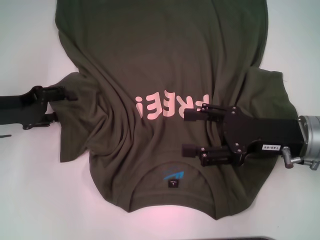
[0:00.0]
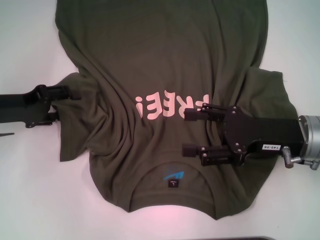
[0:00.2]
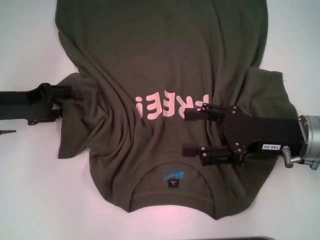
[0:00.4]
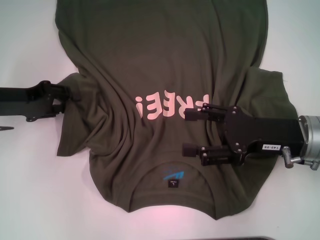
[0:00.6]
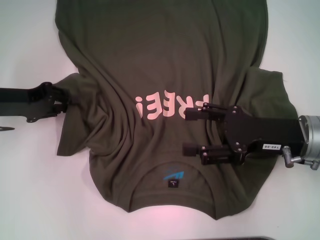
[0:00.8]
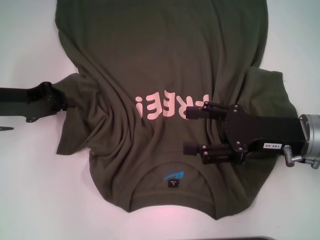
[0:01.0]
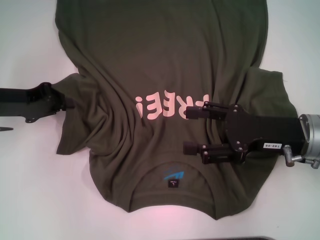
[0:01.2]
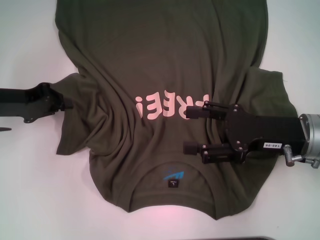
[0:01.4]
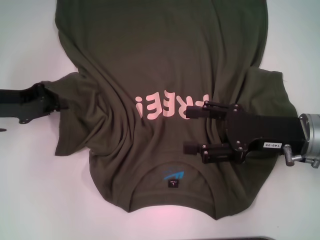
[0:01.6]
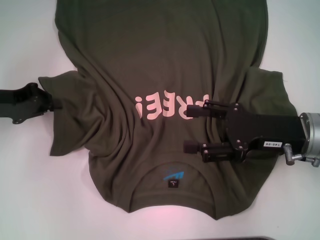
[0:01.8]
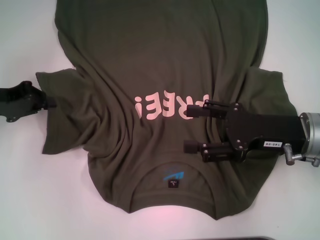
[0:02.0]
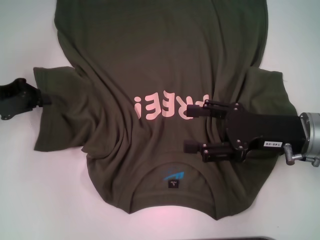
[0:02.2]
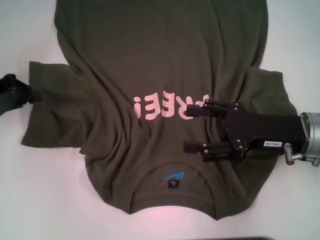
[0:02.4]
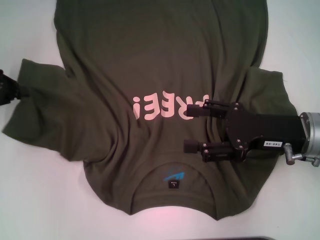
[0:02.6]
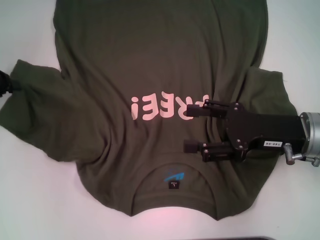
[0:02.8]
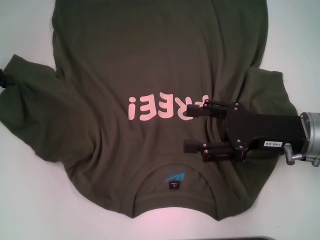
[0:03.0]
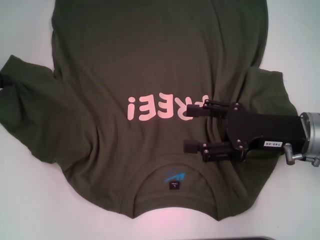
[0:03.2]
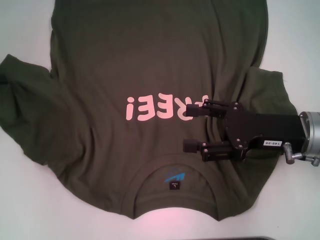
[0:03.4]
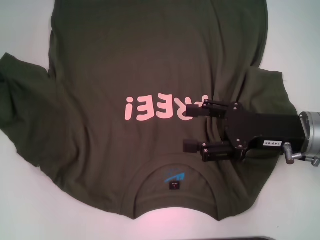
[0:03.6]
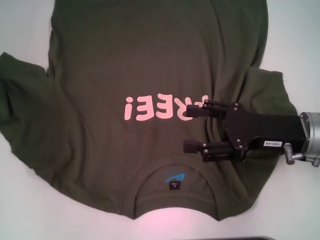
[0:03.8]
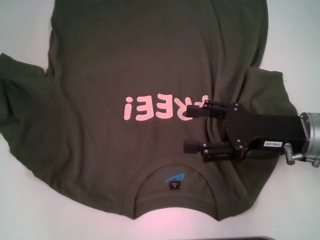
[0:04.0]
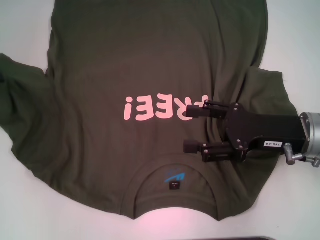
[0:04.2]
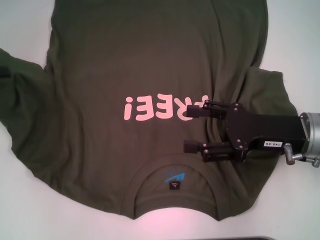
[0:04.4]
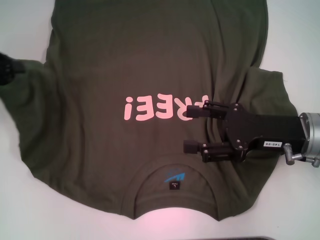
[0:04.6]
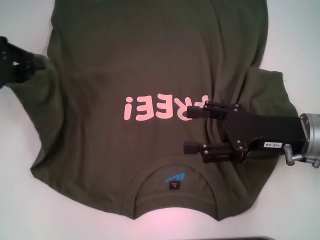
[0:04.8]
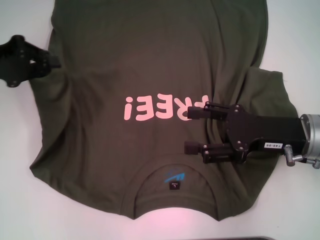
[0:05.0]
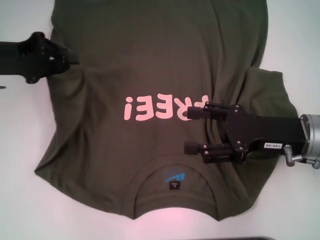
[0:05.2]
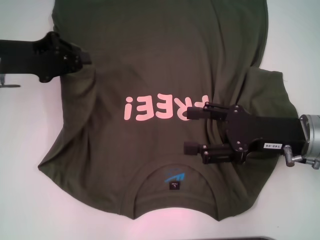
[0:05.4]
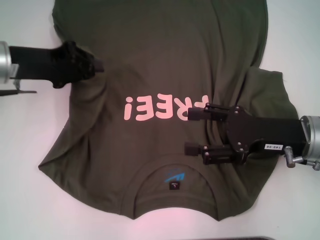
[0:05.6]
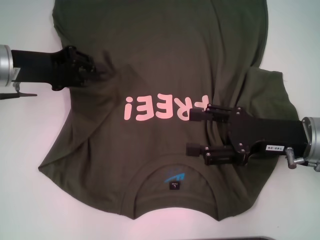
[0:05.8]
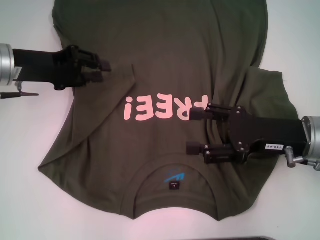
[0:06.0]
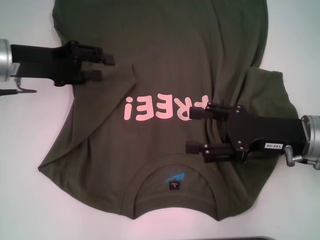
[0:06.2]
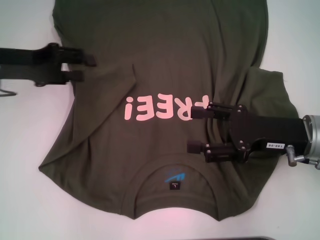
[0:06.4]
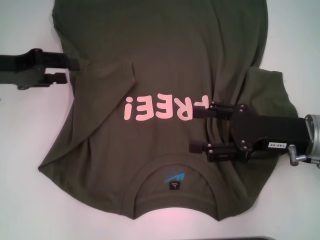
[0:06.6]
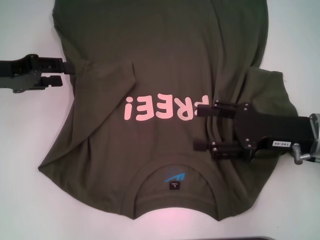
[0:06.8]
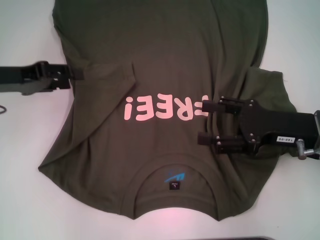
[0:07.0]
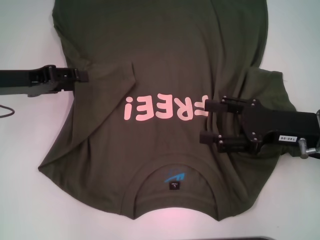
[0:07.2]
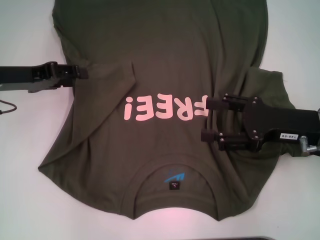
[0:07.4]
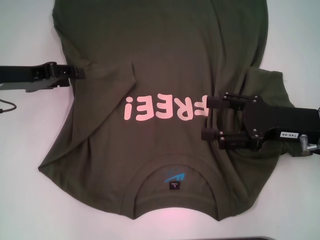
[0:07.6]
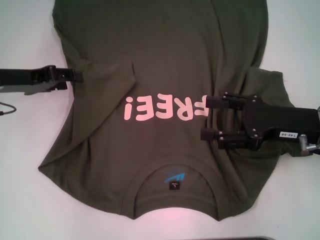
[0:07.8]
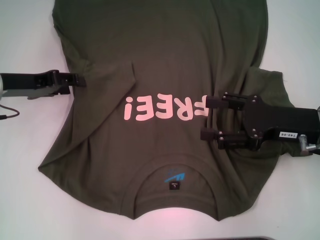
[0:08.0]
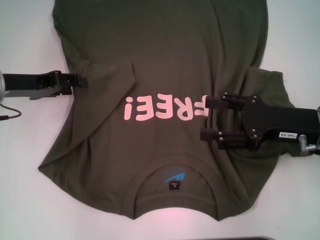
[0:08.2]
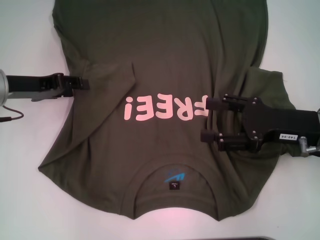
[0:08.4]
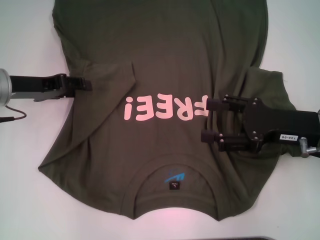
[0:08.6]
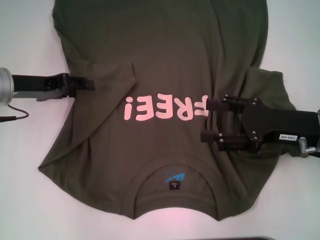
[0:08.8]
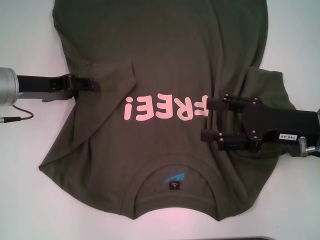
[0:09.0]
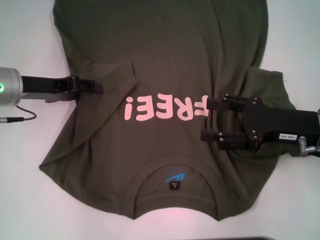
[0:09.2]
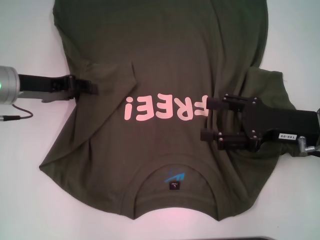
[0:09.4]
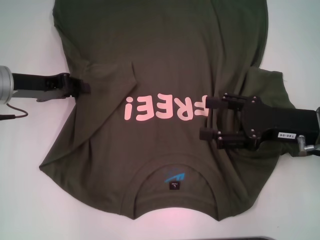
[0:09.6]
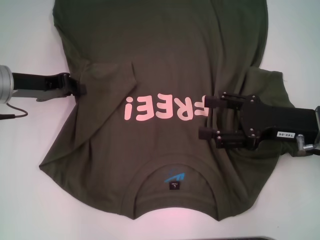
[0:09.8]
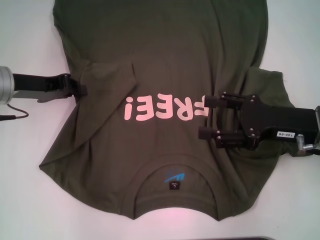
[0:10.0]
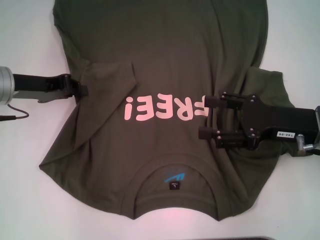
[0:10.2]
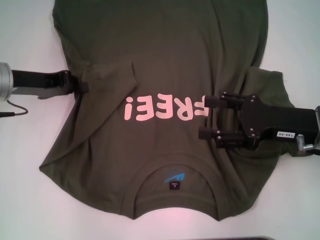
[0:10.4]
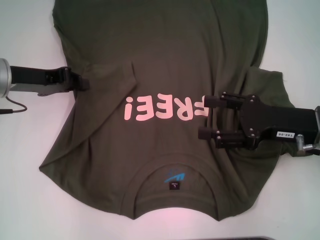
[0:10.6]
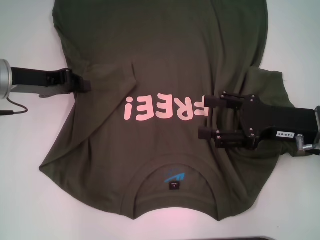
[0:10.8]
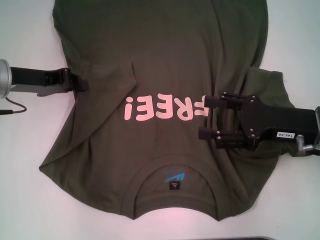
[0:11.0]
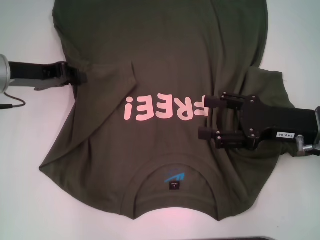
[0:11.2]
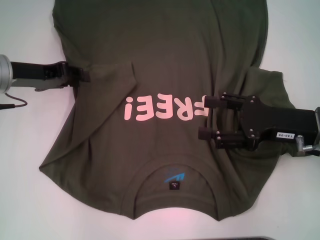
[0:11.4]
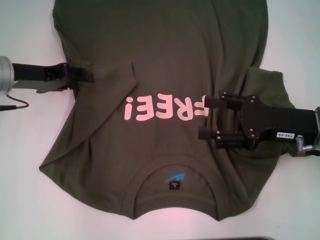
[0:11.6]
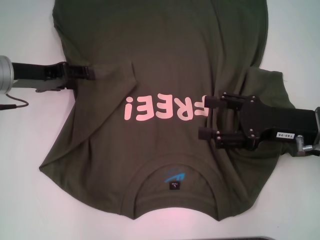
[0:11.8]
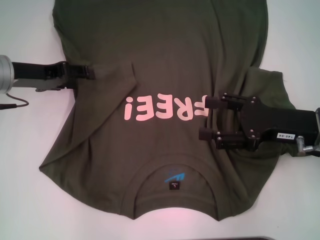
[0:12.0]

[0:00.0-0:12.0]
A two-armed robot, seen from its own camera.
0:00.0 to 0:01.6: The left gripper closes.
0:01.6 to 0:03.0: The left gripper is displaced to the left by roughly 5 cm.
0:03.0 to 0:04.4: The grippers stay close to where they were, moving slightly.
0:04.4 to 0:06.0: The left gripper is displaced to the right by approximately 15 cm.
0:06.0 to 0:07.6: The left gripper opens.
0:07.6 to 0:09.0: The grippers stay close to where they were, moving slightly.
0:09.0 to 0:10.4: The left gripper closes its fingers.
0:10.4 to 0:12.0: The left gripper opens.

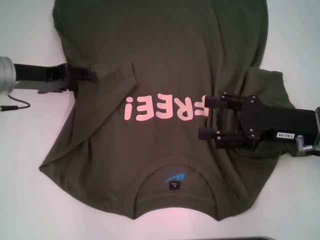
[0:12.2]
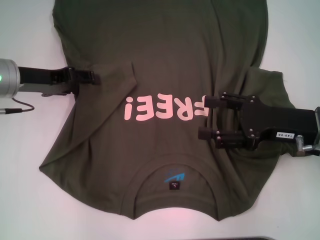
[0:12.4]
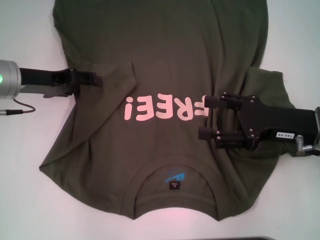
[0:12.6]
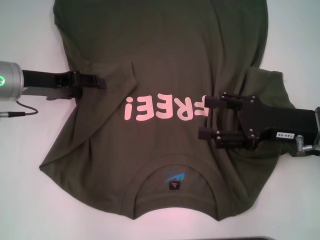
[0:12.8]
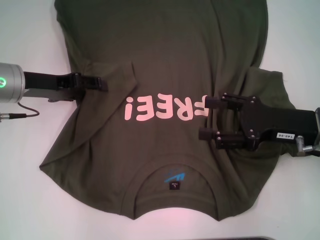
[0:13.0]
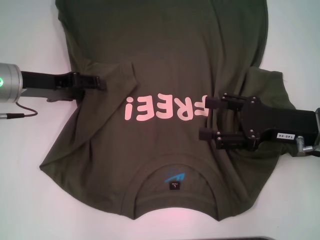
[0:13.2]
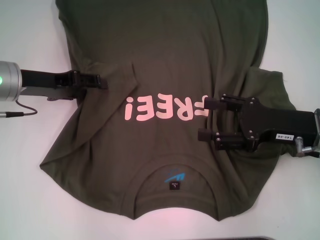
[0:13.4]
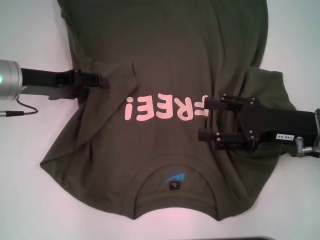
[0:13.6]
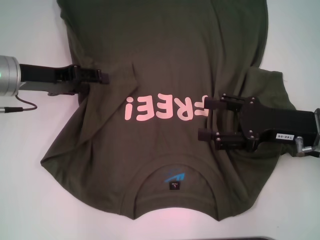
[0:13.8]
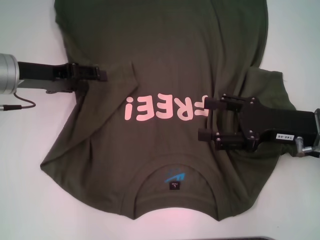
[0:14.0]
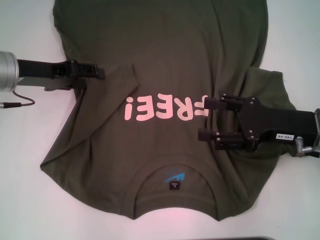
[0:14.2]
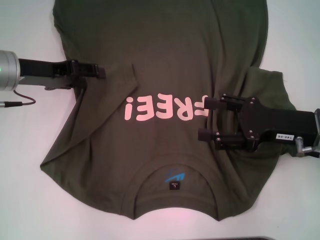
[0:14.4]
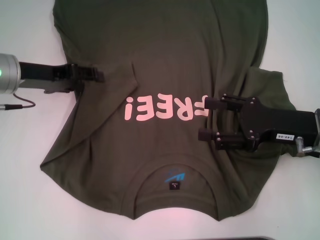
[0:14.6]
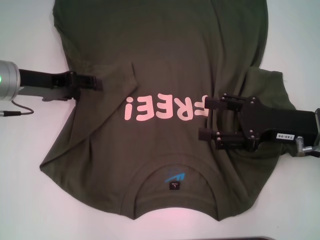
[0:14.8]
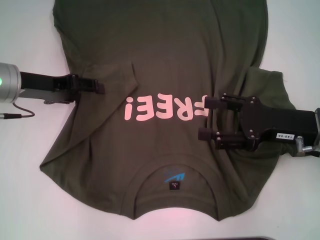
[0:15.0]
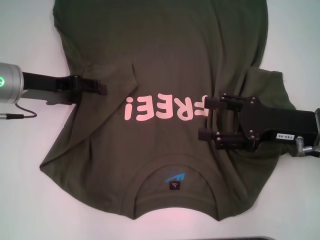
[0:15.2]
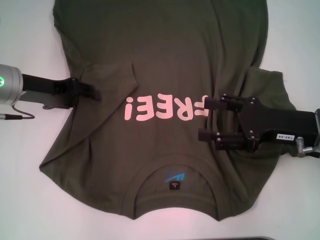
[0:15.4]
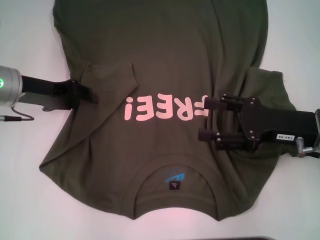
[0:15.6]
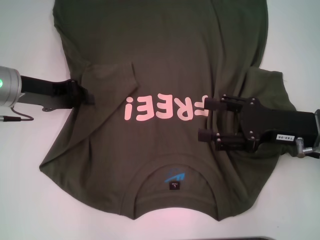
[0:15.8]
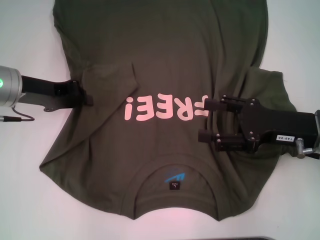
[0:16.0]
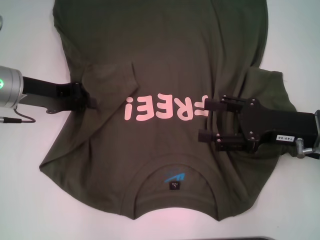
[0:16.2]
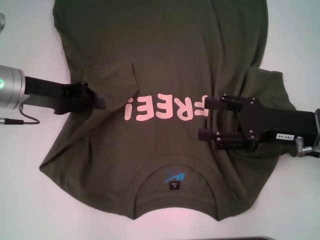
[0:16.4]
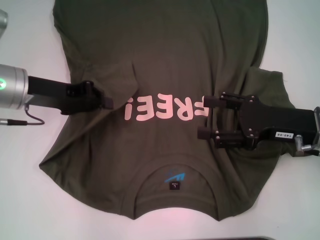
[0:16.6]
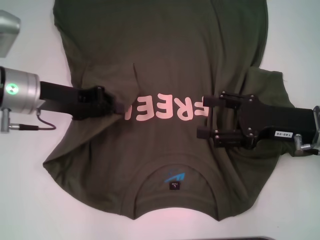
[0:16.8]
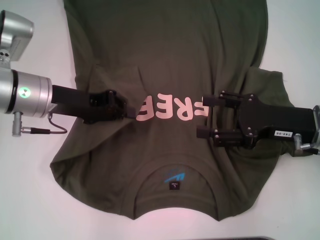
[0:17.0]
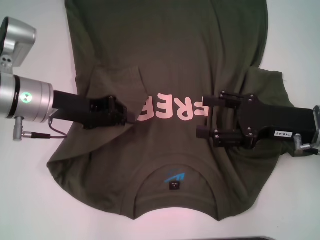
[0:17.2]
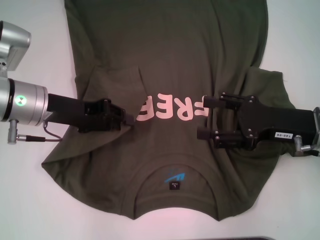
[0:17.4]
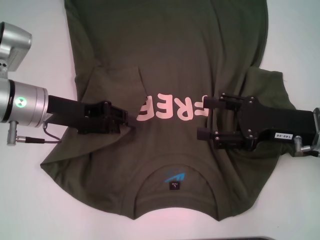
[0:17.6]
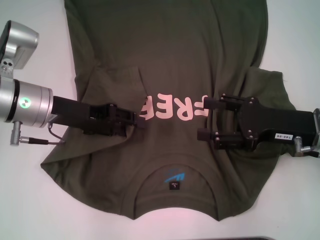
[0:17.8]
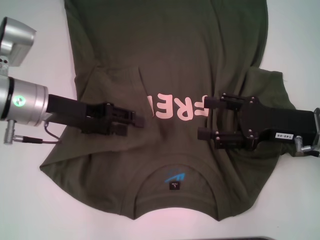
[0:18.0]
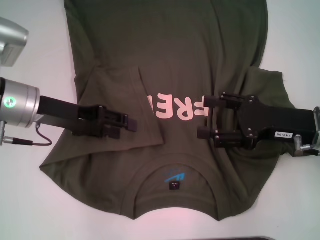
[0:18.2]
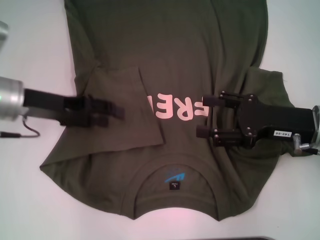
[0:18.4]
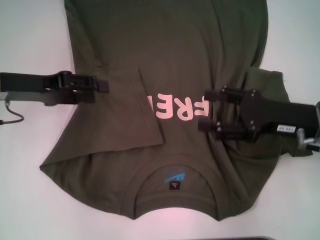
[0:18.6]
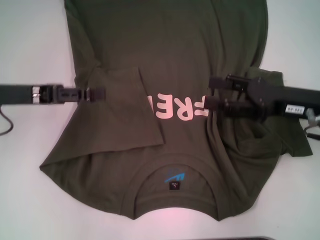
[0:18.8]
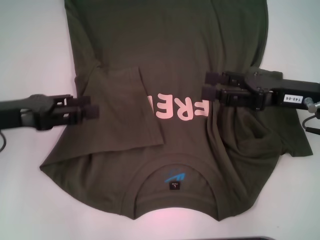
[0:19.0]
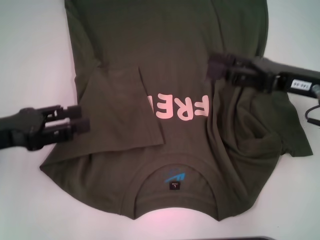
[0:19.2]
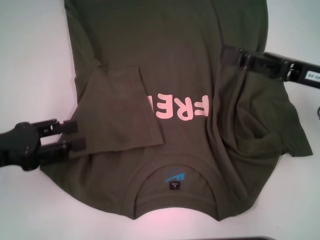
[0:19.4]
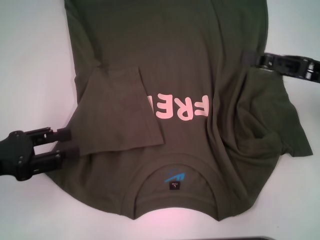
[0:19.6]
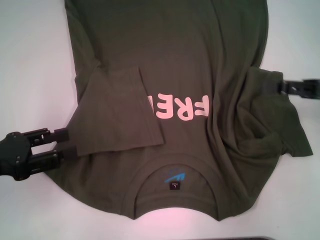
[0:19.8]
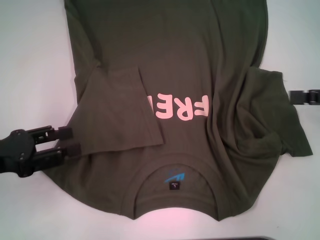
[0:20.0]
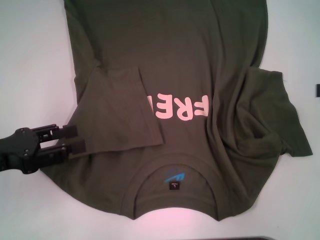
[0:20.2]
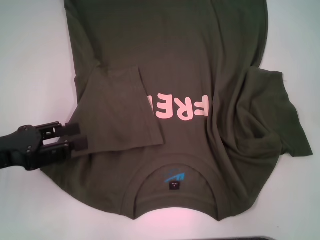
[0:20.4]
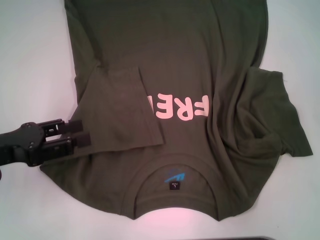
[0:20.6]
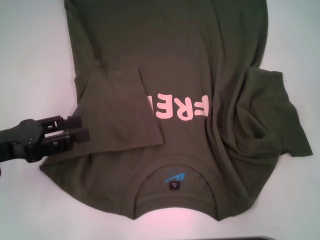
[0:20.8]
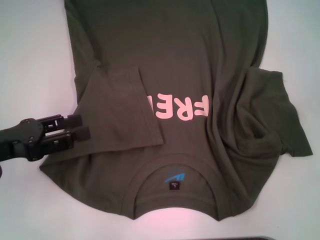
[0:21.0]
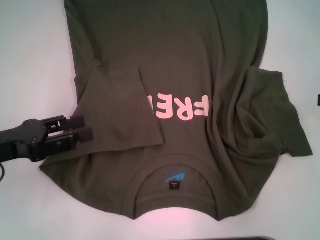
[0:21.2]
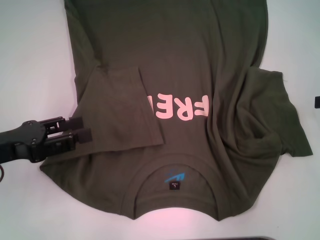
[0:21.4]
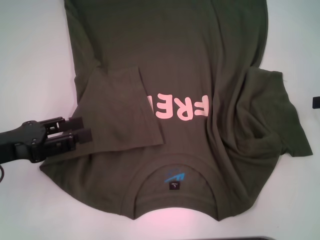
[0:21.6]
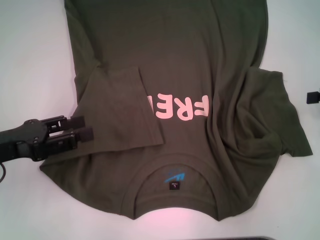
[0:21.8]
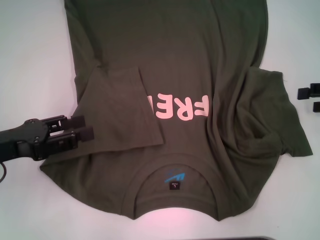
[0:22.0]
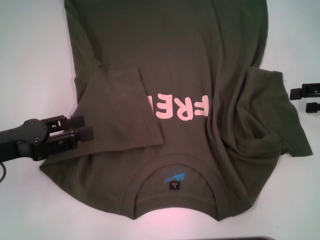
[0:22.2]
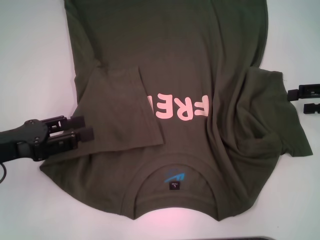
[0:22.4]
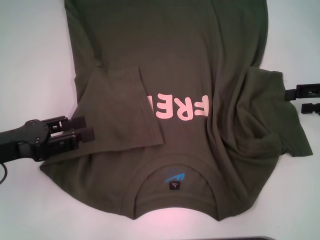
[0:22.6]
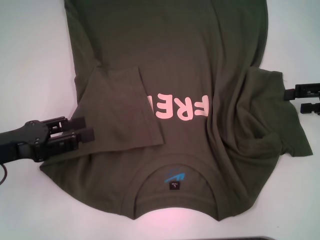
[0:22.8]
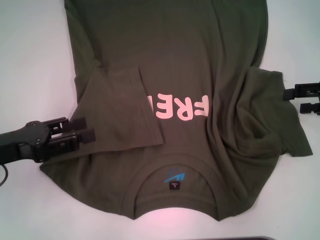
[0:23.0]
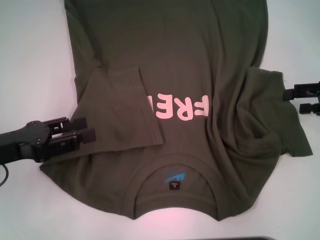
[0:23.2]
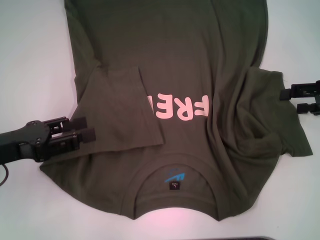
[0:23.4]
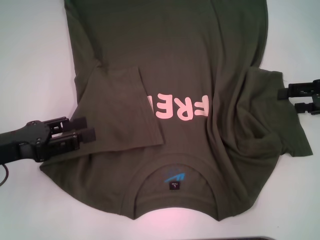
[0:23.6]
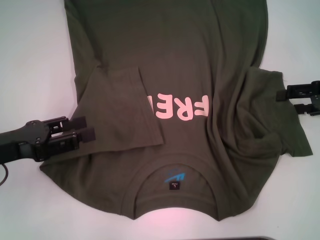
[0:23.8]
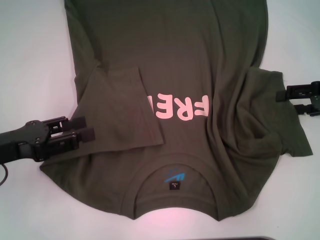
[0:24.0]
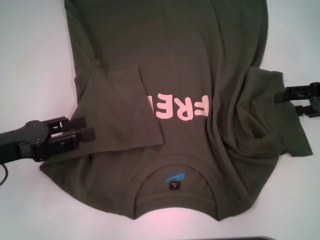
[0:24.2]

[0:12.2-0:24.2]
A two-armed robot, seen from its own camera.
Step, 0:12.2 to 0:18.2: Fold the bottom left sleeve with your left hand.
0:12.2 to 0:13.8: The grippers stay close to where they were, moving slightly.
0:13.8 to 0:15.2: Neither gripper changes place.
0:15.2 to 0:16.6: The left gripper closes up.
0:16.6 to 0:18.2: The left gripper opens its fingers.
0:18.2 to 0:19.8: The left gripper is displaced backward and to the left by approximately 15 cm. The right gripper moves to the right, some 10 cm.
0:19.8 to 0:21.2: The right gripper moves to the right, some 10 cm.
0:21.2 to 0:22.6: The right gripper ends up about 5 cm from where it was.
0:22.6 to 0:24.2: The grippers make only small movements.
